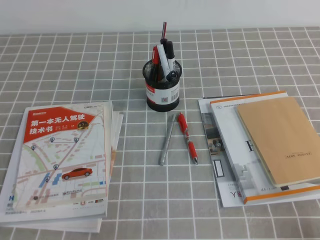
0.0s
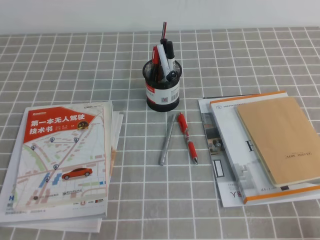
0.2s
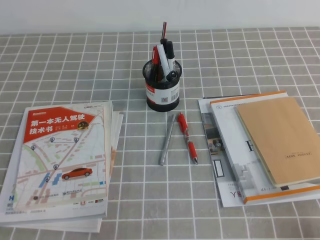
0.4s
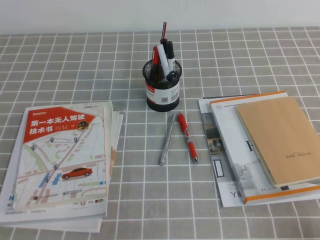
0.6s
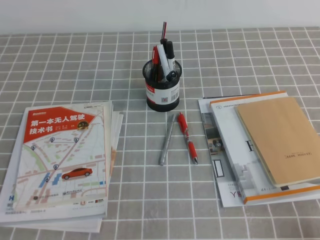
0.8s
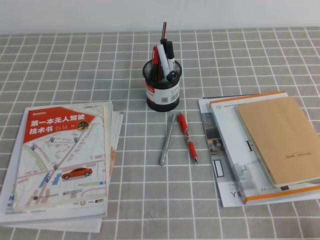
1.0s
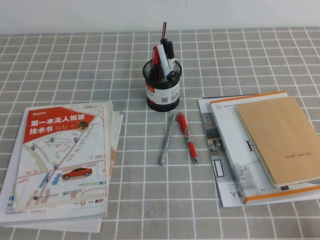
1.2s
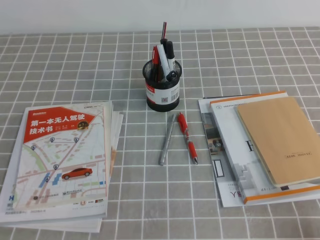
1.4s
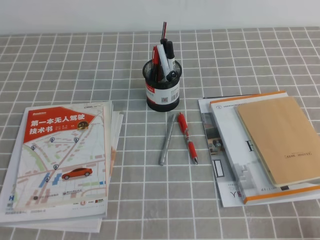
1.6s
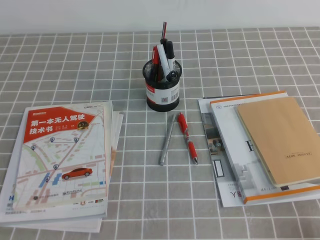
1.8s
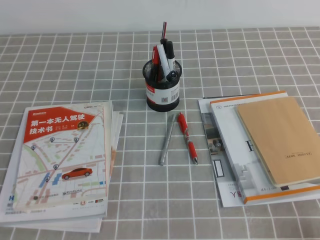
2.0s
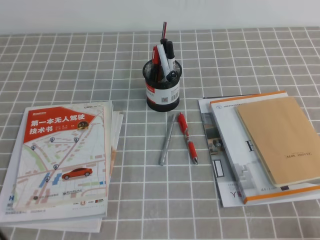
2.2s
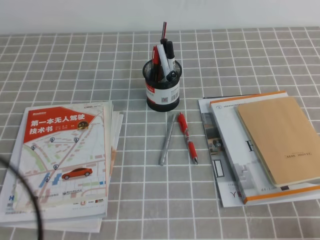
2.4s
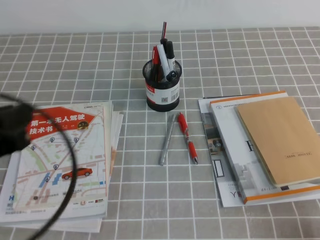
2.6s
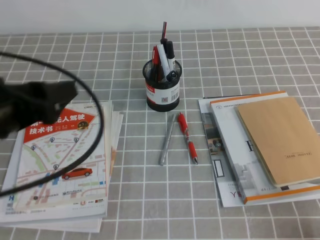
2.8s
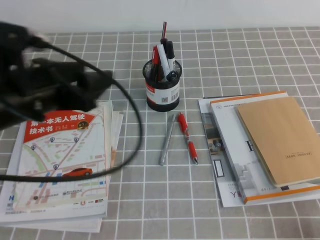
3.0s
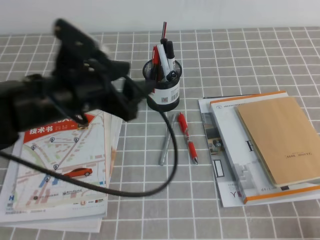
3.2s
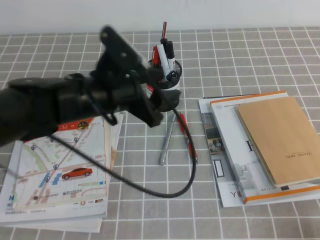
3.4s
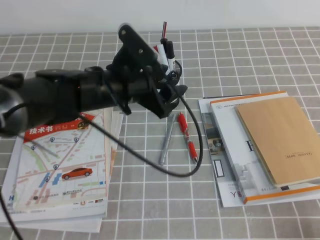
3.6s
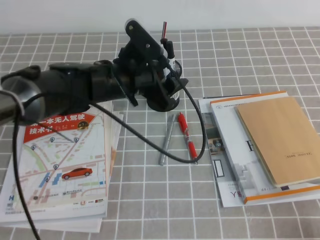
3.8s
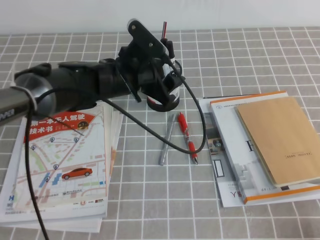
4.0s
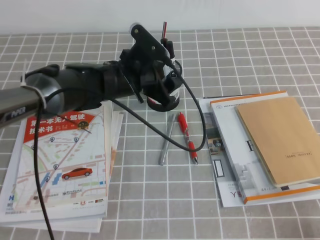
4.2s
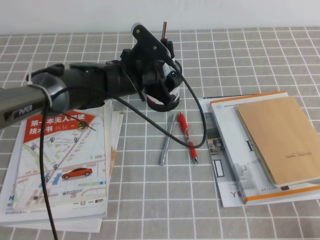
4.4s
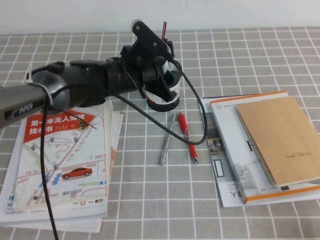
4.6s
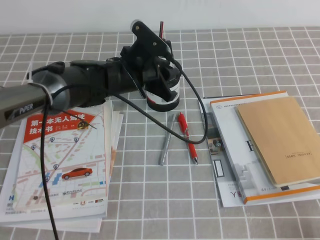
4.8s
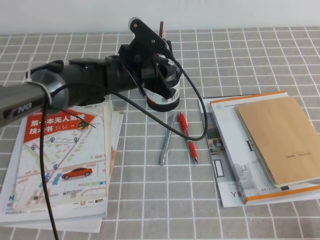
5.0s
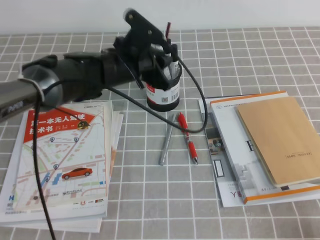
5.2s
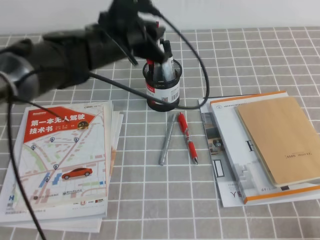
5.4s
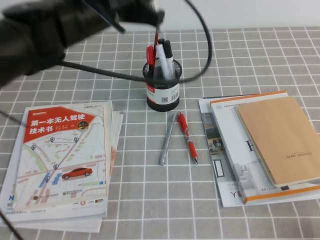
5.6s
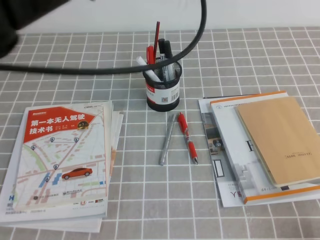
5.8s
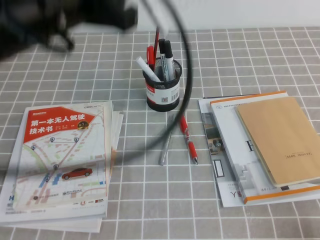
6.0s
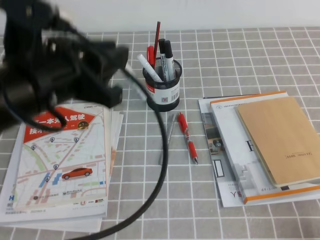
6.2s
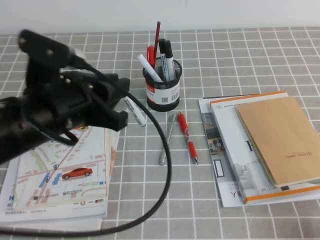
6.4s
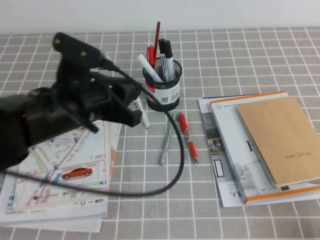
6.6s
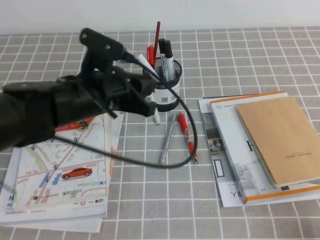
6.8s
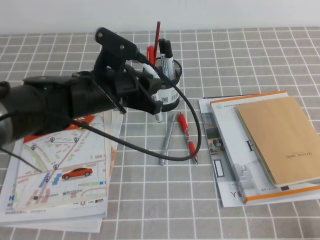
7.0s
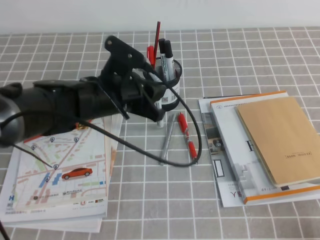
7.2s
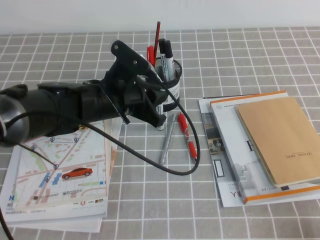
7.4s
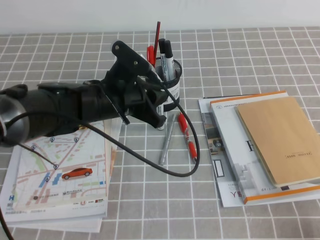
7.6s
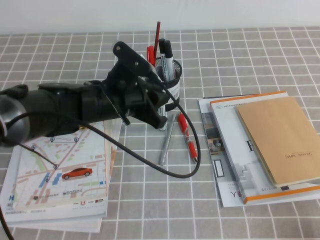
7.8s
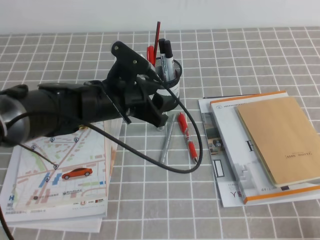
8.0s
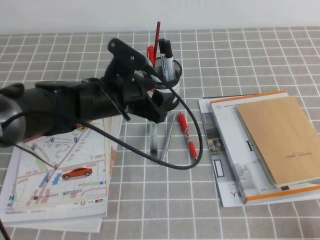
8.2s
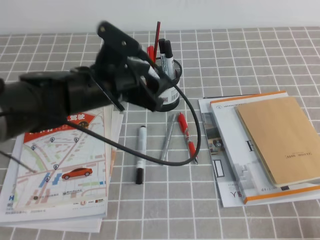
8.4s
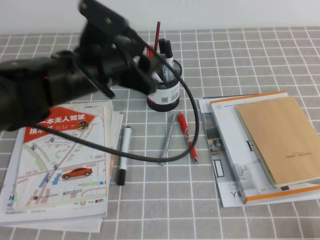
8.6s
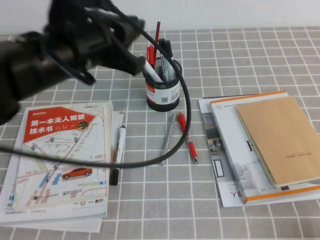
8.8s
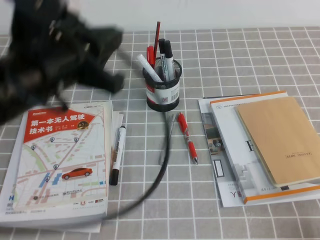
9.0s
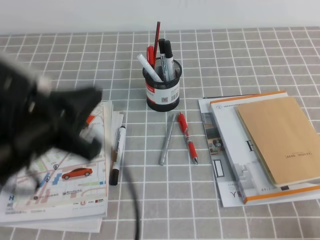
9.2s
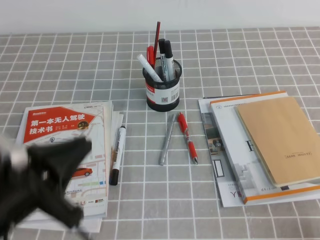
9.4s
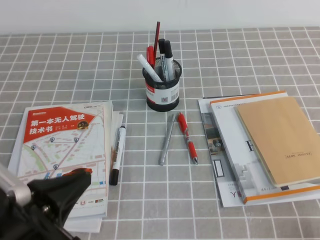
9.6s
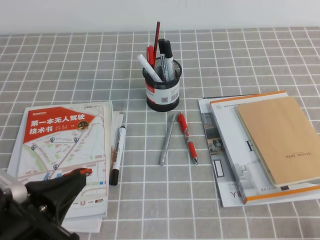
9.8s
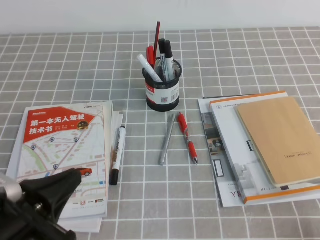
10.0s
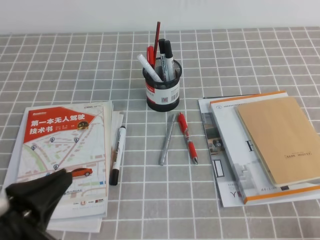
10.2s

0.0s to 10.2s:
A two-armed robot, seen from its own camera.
1.4s to 3.0s: The left gripper shifts about 20 cm forward, upward and to the right, and opens its fingers.
3.0s to 4.4s: The left gripper shifts some 25 cm forward, to the right and downward.
4.4s to 5.8s: The left gripper heads upward, covering about 15 cm, and closes up.
5.8s to 7.2s: The left gripper moves downward, about 15 cm.
7.2s to 8.8s: The left gripper goes some 10 cm upward, and opens, then closes again.
8.8s to 10.2s: The left gripper shifts roughly 25 cm backward, to the left and downward, and closes.

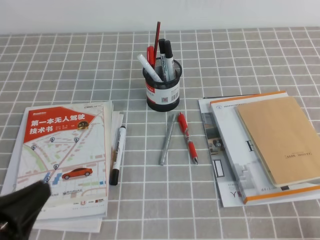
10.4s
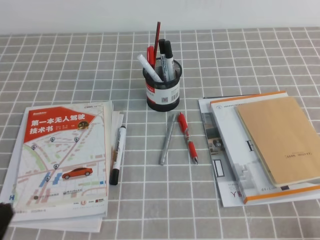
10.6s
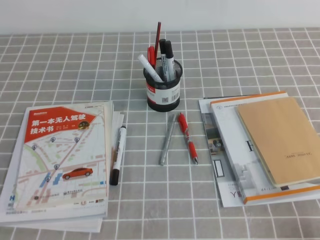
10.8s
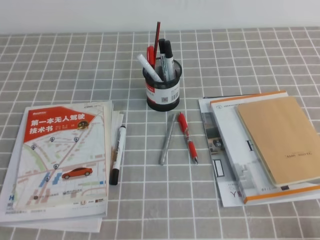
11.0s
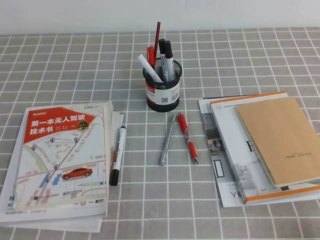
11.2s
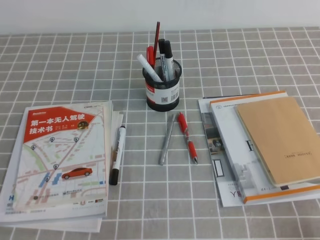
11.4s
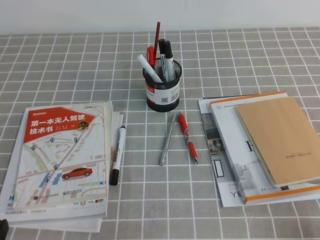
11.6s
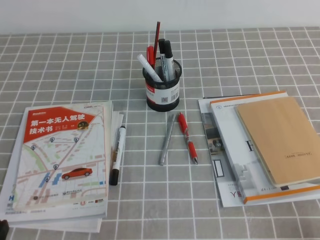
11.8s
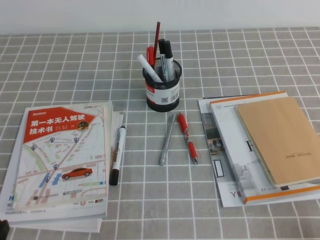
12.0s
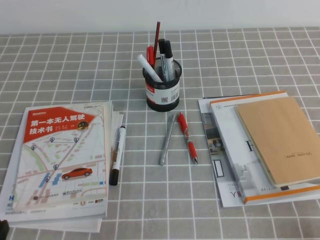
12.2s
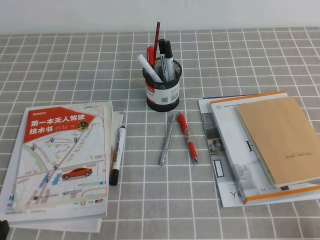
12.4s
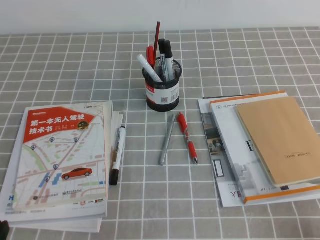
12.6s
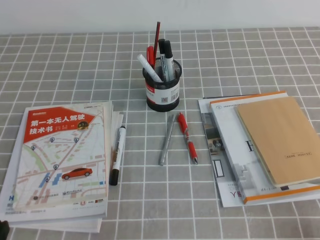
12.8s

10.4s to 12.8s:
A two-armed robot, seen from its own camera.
Step, 10.4s to 12.8s: Pick up the pen from the pen holder.
10.4s to 11.6s: The left gripper shifts roughly 10 cm downward and to the left.
11.6s to 12.8s: The two grippers keep their place.

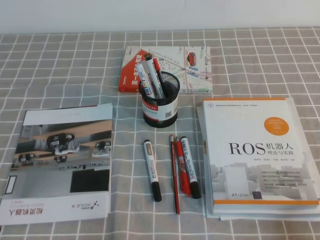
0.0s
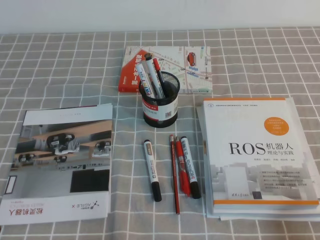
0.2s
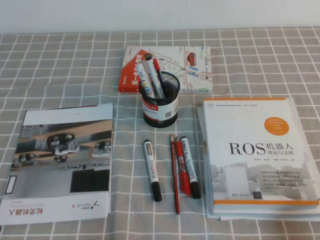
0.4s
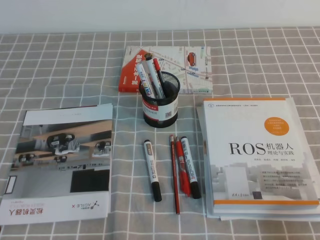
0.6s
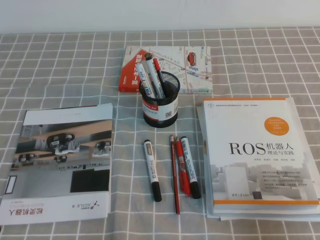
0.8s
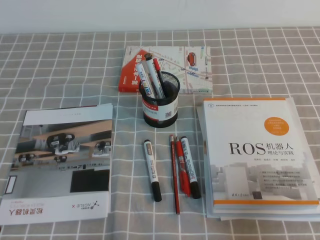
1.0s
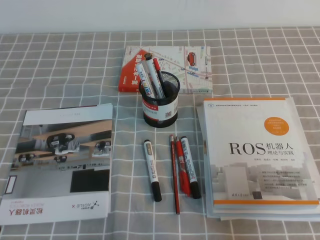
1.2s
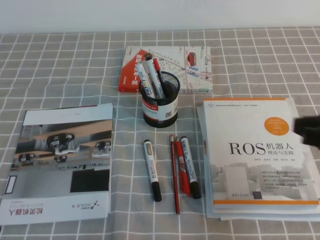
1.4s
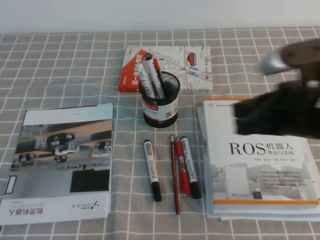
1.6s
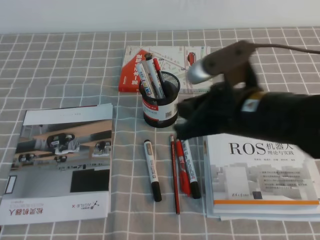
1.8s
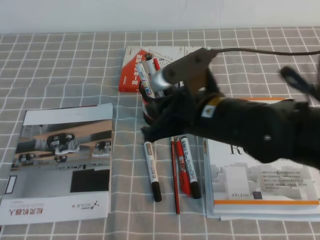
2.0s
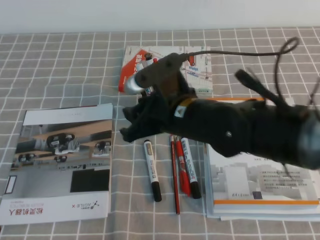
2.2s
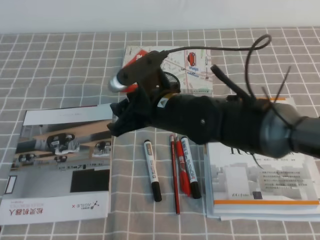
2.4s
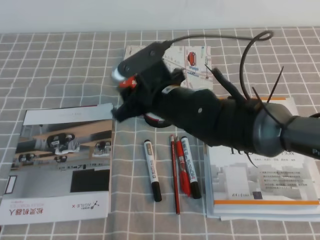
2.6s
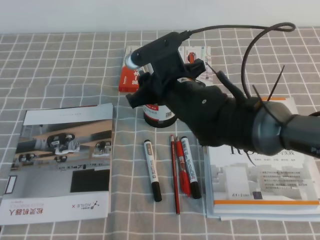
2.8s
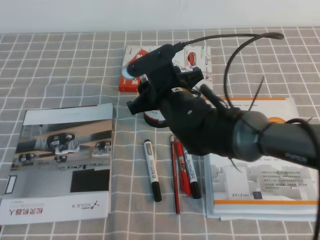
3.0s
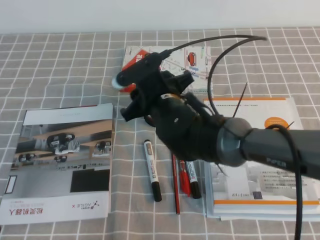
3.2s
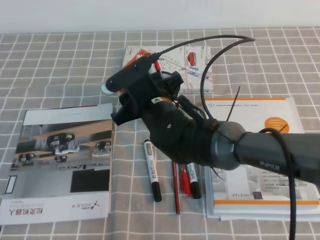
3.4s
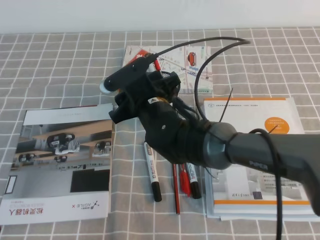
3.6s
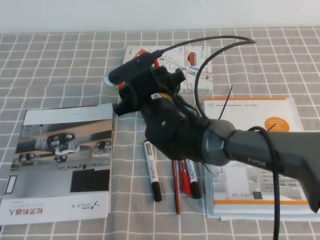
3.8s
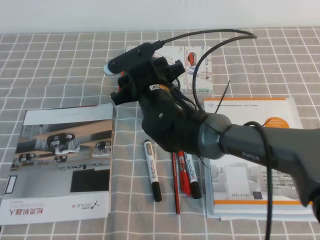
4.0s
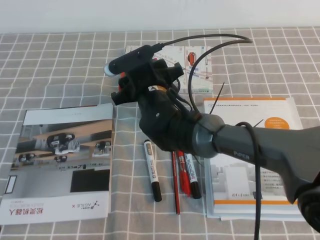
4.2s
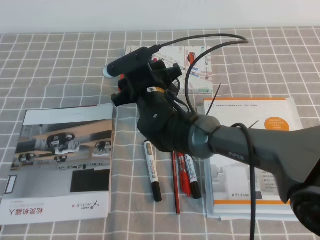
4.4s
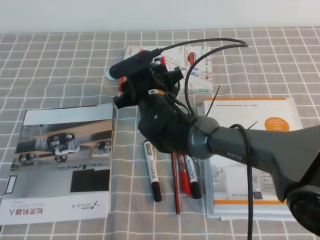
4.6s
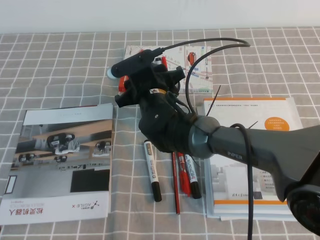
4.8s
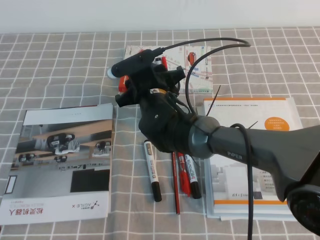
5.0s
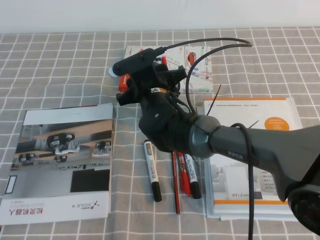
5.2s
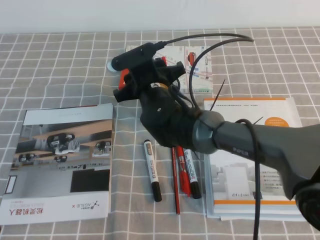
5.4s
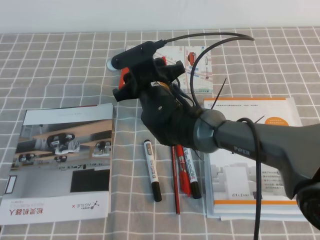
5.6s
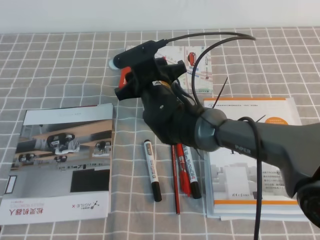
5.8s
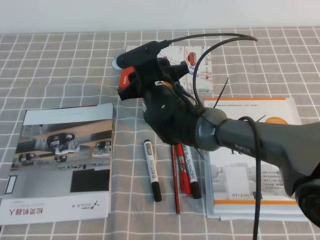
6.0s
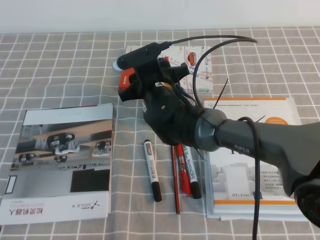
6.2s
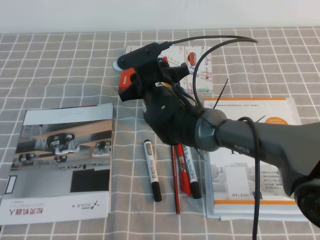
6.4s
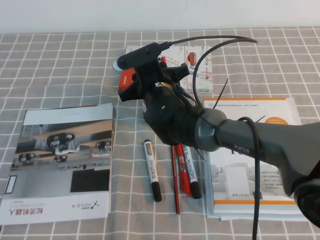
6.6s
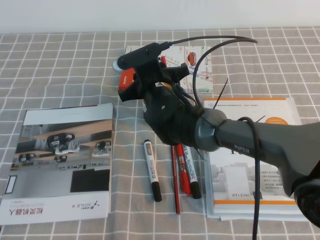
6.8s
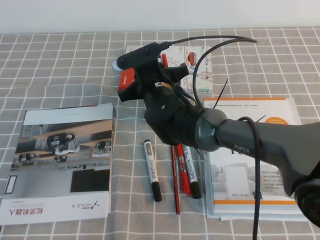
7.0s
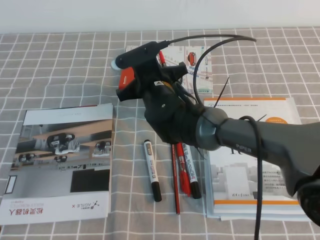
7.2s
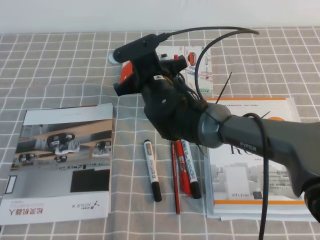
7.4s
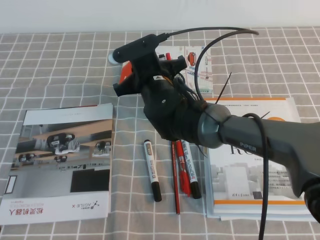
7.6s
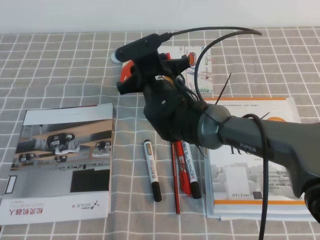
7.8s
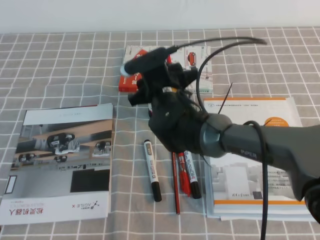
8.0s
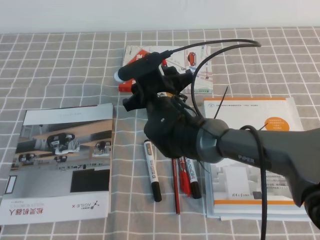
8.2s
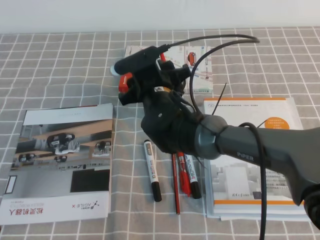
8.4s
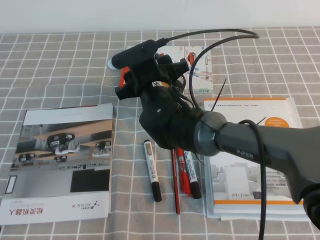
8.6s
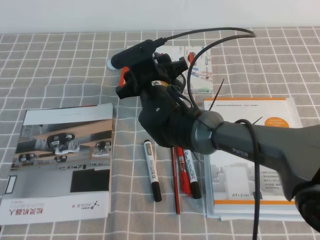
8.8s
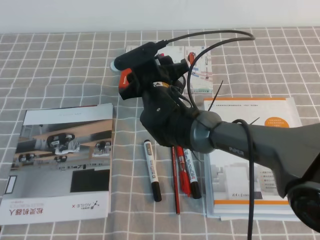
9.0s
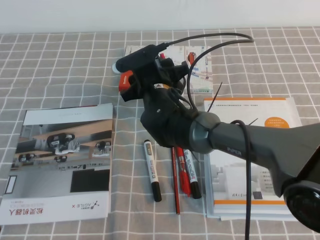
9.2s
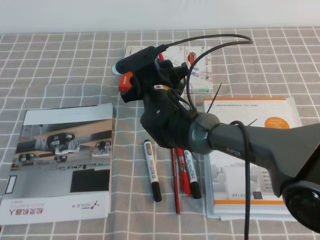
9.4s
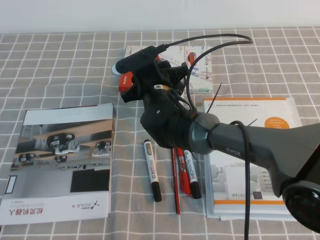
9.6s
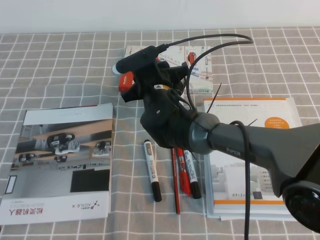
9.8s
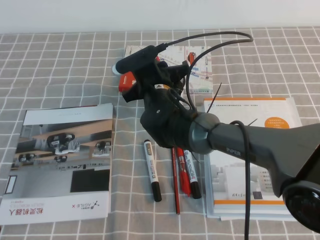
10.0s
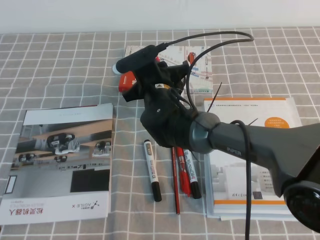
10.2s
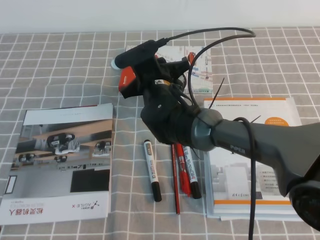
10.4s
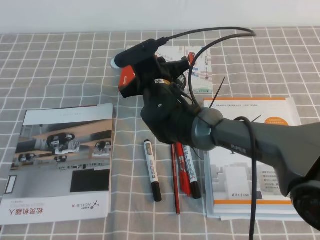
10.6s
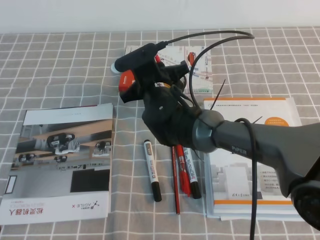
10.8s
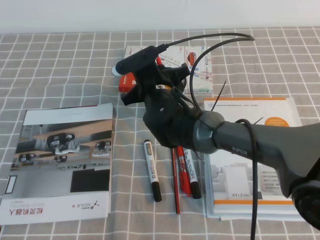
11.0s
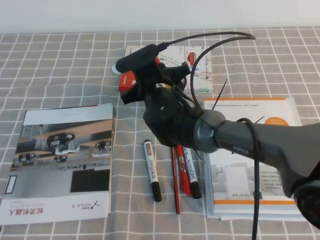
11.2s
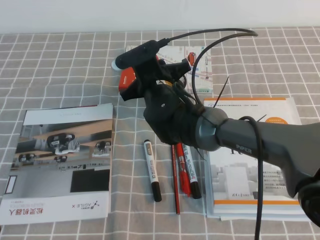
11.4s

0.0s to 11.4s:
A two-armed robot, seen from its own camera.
0.0s to 1.4s: The right gripper heads forward, upward and to the left, covering some 20 cm.
1.4s to 2.8s: The right gripper travels to the left and forward by about 30 cm, and opens up.
2.8s to 4.2s: The right gripper moves roughly 5 cm.
4.2s to 5.6s: The grippers make only small movements.
5.6s to 7.2s: The right gripper closes its fingers.
7.2s to 8.6s: The right gripper opens.
8.6s to 10.0s: The right gripper closes.
10.0s to 11.4s: The grippers make only small movements.
